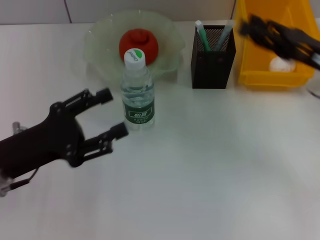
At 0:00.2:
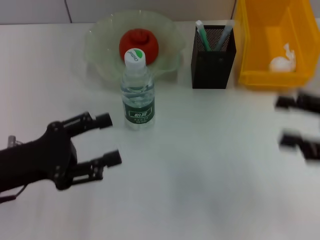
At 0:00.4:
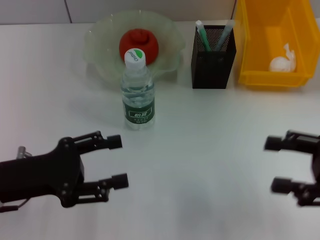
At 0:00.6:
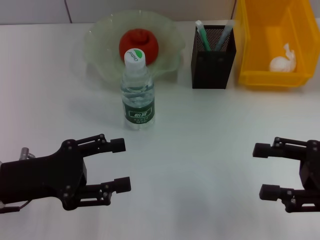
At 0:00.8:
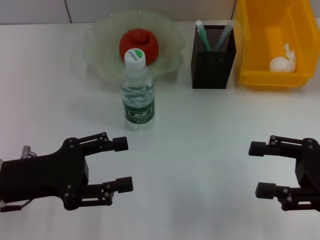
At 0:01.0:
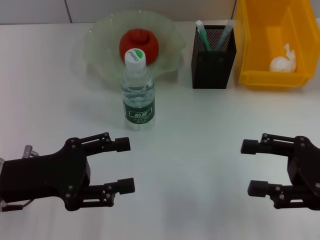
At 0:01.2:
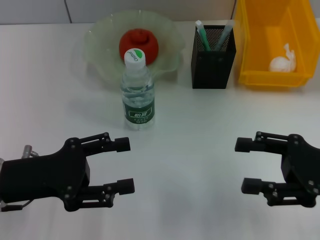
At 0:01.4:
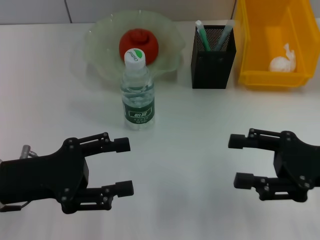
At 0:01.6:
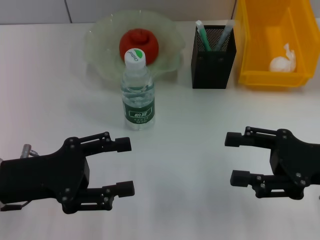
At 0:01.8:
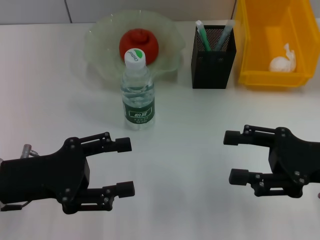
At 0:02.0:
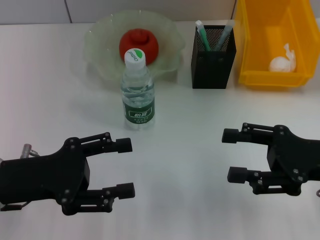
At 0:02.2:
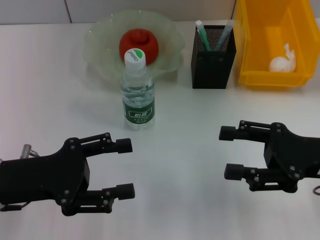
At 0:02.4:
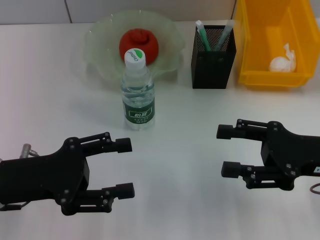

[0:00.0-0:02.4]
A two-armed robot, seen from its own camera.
0:00.0 to 0:01.2: The right gripper shifts approximately 10 cm backward, and opens its fingers.
0:01.2 to 0:02.4: There are only small adjustments of the grippers.
